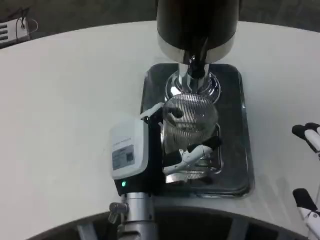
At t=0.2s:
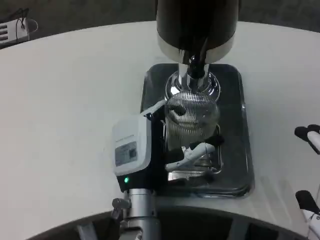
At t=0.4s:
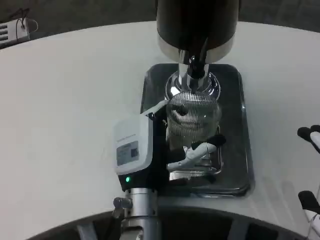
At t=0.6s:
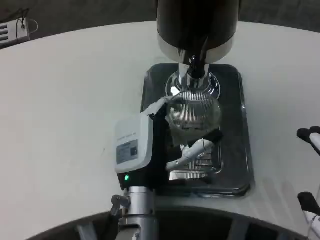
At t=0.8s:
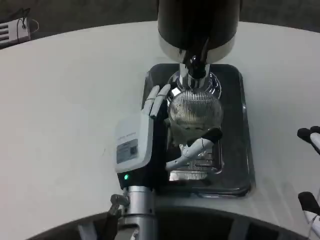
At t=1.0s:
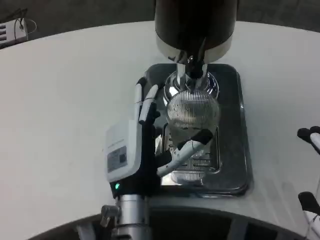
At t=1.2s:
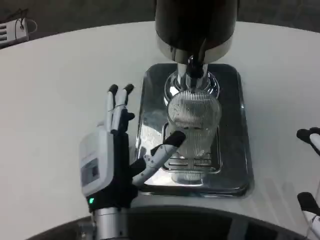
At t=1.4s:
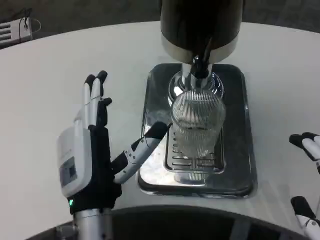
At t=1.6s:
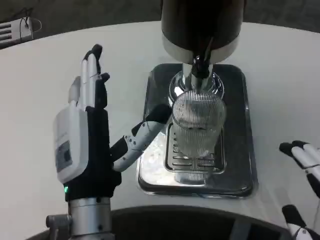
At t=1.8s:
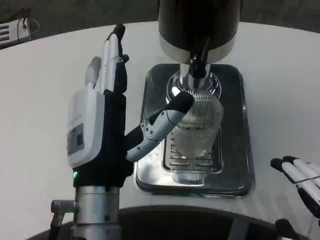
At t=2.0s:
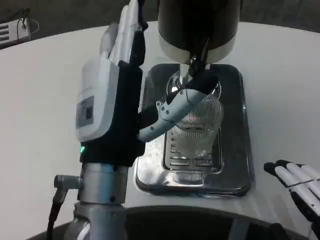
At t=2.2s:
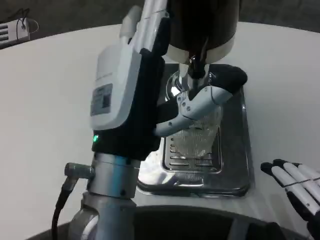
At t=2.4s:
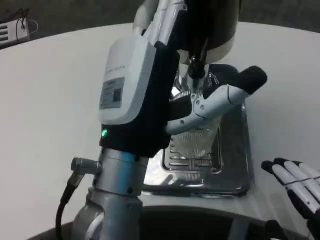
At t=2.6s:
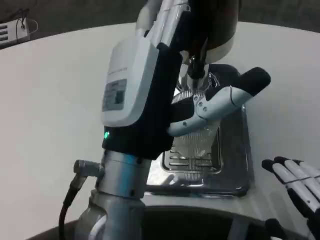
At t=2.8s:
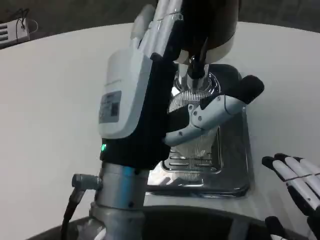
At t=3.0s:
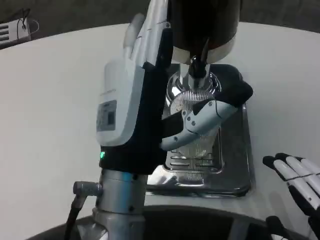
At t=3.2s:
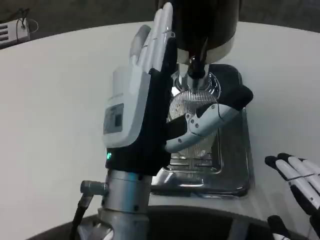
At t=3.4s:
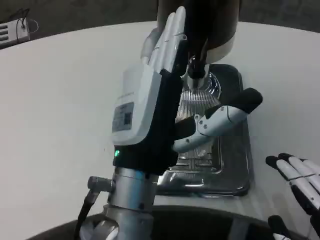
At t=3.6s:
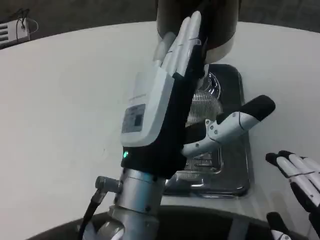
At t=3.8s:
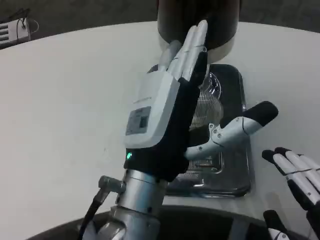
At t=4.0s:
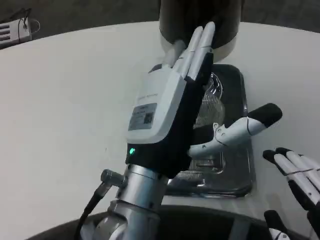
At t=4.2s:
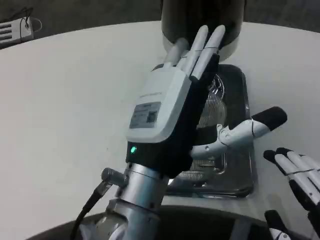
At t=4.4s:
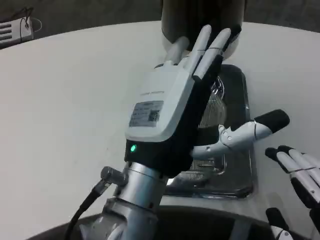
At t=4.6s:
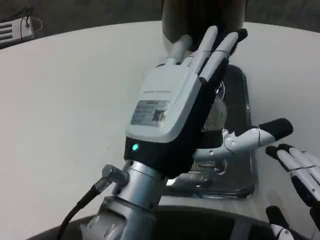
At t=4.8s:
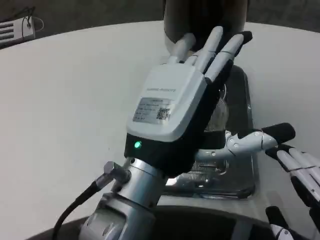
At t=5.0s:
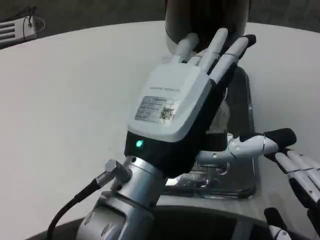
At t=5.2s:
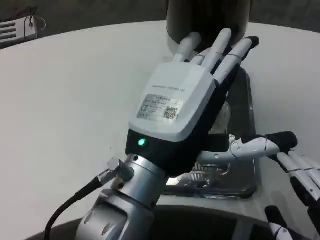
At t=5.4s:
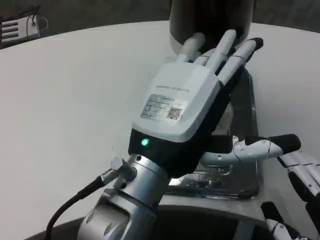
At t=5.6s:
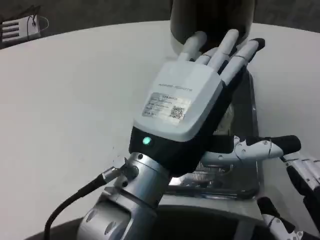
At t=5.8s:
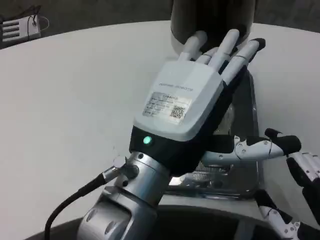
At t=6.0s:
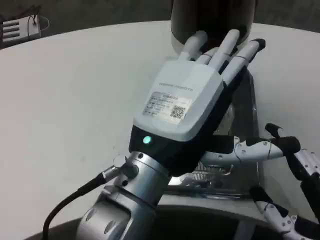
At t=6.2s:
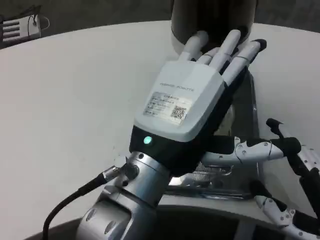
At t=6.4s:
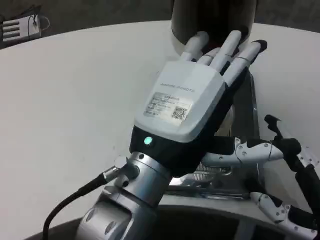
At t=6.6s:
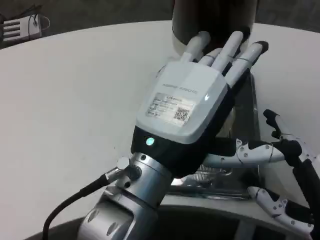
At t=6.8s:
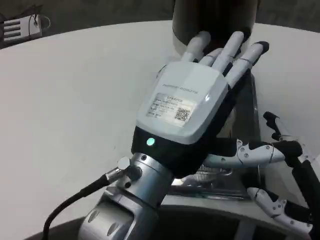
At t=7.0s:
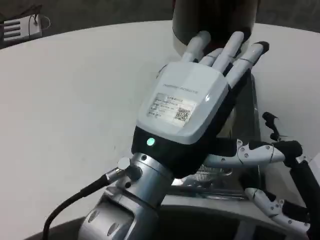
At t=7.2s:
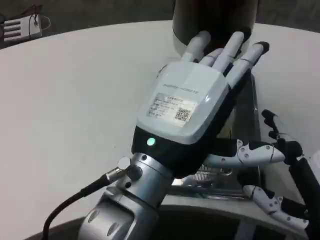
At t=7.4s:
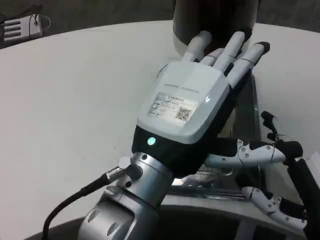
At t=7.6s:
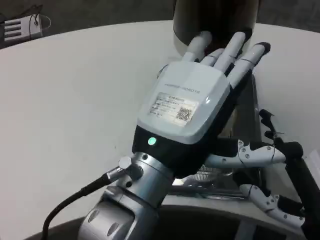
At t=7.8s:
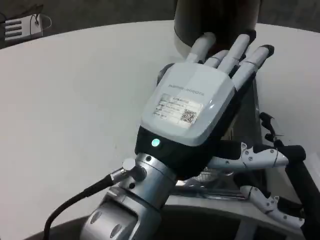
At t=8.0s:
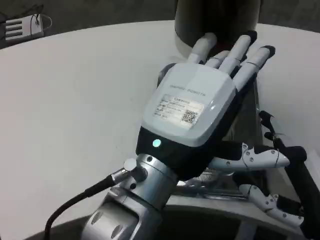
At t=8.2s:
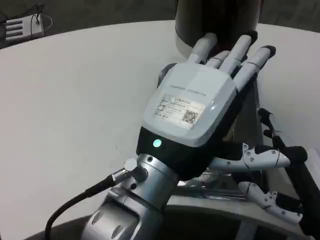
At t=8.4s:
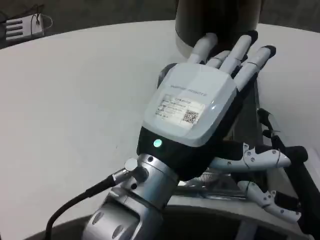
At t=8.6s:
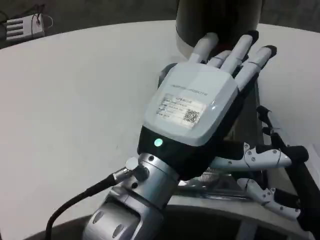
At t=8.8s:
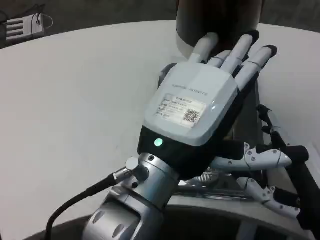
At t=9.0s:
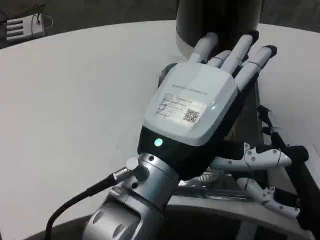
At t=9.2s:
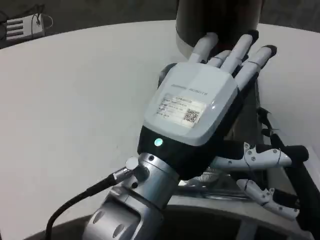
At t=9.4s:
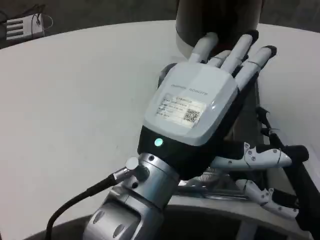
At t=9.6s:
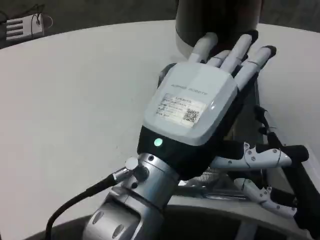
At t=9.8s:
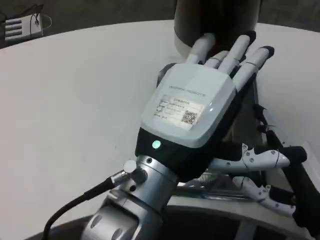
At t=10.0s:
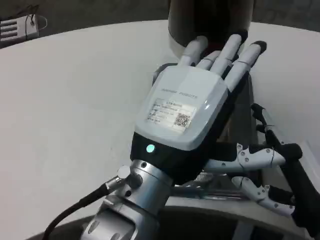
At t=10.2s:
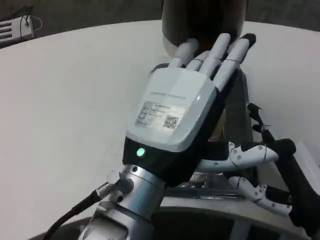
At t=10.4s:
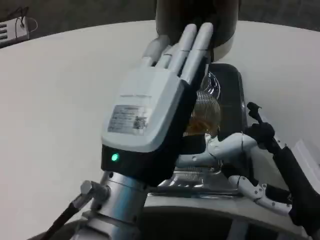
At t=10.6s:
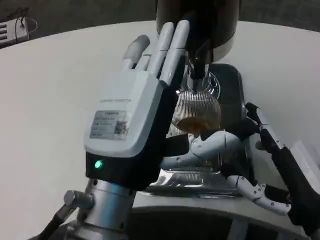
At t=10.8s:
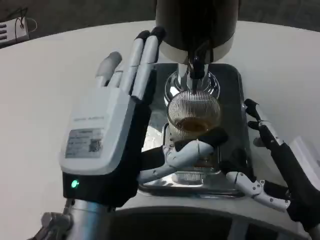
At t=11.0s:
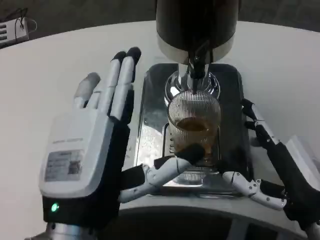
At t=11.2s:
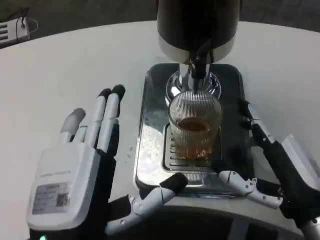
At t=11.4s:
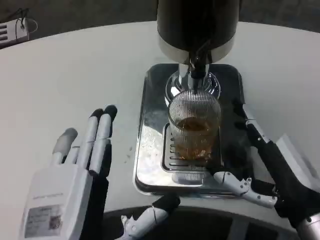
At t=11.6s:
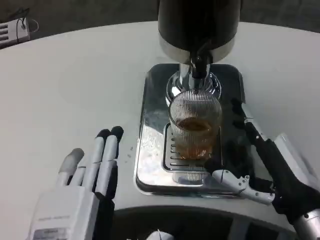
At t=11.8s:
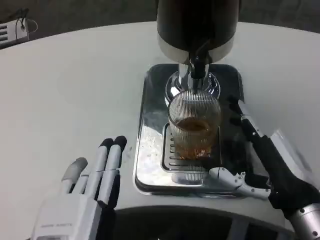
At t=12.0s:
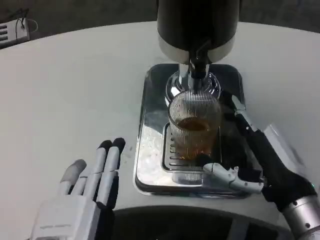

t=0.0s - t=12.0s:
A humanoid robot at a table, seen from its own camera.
Task of the whole recording: Grasp the cup under the faucet to collect the drink, then remove the cup.
t=0.0s - t=1.6s: The left hand goes about 10 cm backward and upward.
t=1.6s - t=3.0s: The left hand moves approximately 5 cm.
t=6.0s - t=9.0s: The hands make only small movements.
t=10.4s - t=12.0s: The left hand moves downward, backward and to the left, approximately 15 cm.

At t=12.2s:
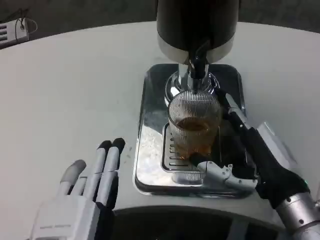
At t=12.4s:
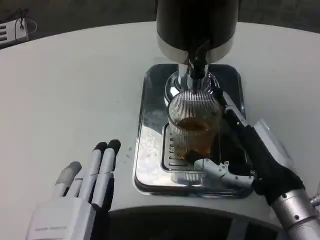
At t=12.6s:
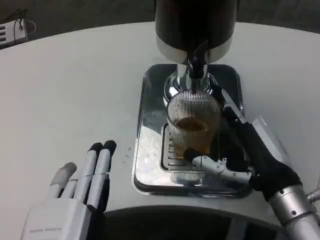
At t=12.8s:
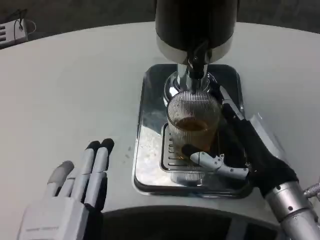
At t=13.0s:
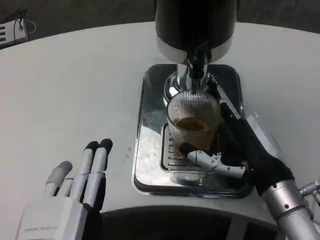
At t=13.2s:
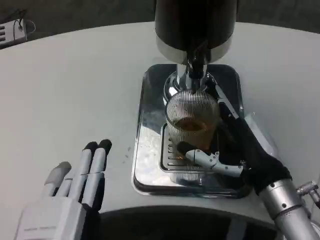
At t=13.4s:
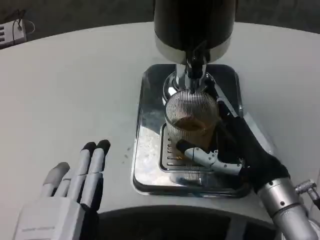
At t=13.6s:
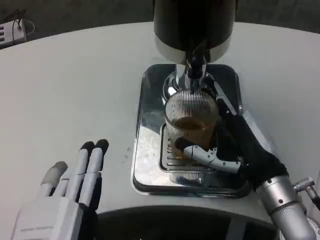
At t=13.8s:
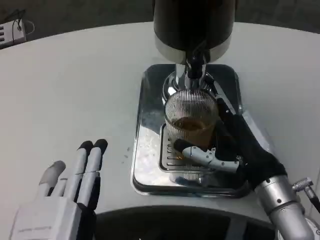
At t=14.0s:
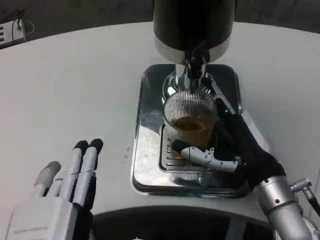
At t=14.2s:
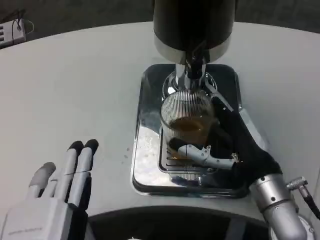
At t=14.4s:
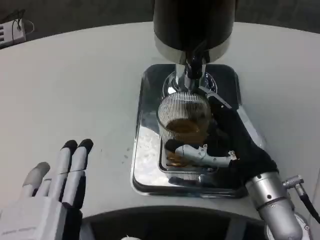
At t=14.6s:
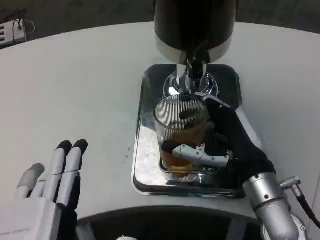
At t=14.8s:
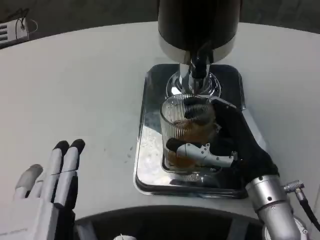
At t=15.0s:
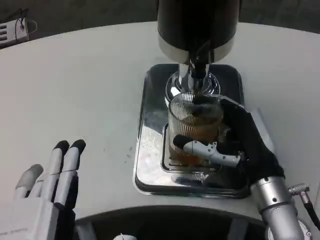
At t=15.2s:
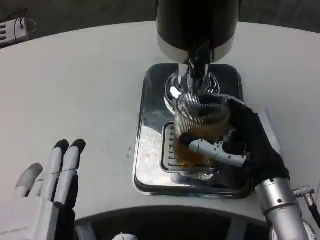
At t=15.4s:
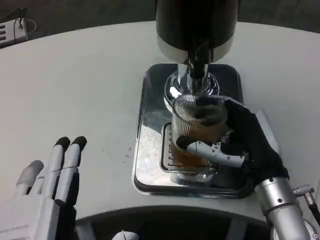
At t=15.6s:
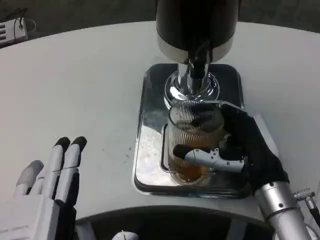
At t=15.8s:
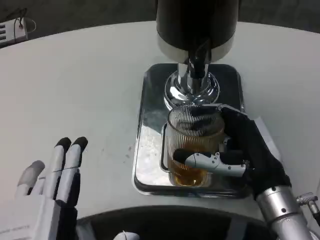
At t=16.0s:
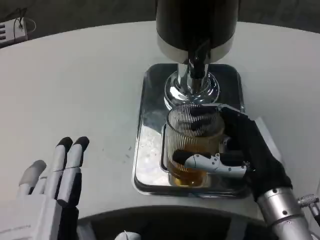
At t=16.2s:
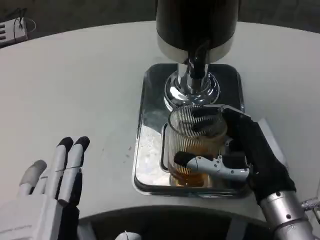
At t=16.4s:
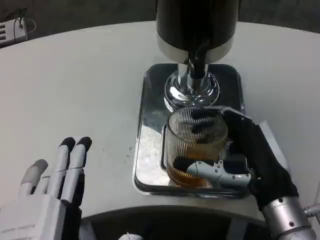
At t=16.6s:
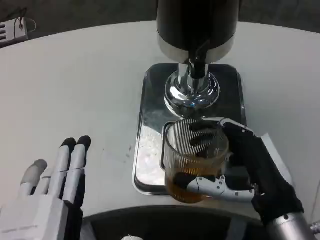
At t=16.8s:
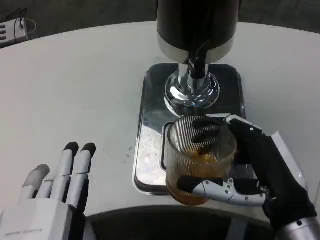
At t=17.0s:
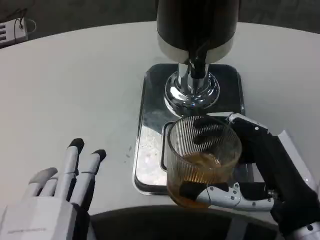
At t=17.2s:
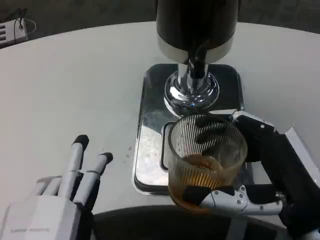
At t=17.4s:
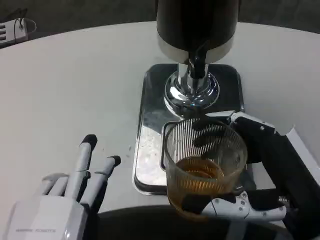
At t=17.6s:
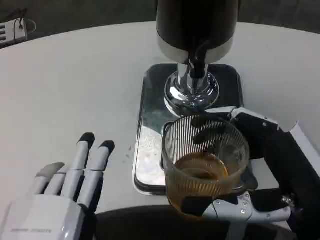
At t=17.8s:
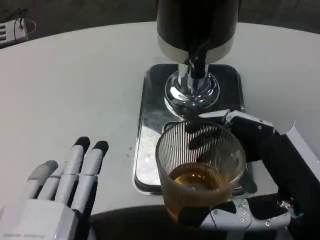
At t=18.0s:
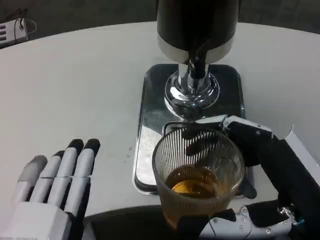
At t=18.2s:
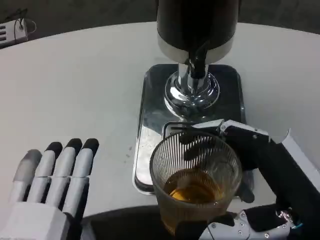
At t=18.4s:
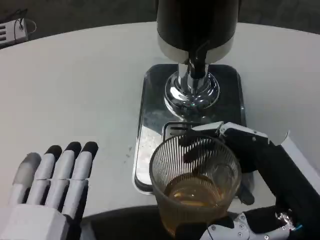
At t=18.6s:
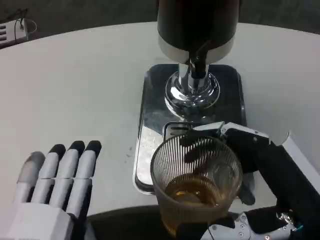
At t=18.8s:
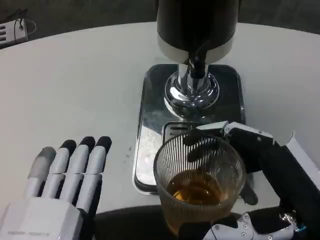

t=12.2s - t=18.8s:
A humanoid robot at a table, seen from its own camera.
Task of the whole recording: Grasp the cup under the faucet to collect the drink, then remove the cup.
t=12.2s - t=15.4s: There are only small adjustments of the hands.
t=15.4s - t=17.2s: The right hand shifts roughly 10 cm backward.
t=17.2s - t=18.8s: The hands move only a little.

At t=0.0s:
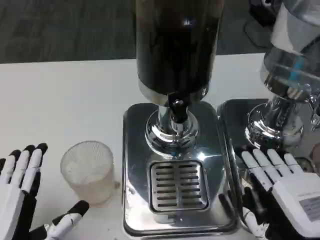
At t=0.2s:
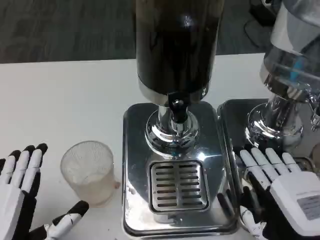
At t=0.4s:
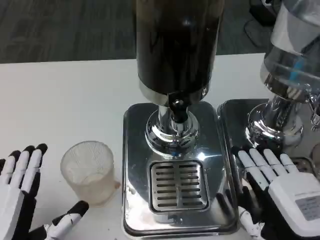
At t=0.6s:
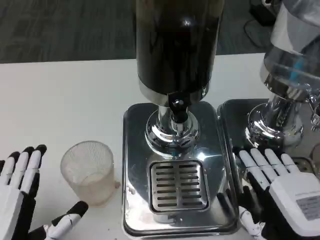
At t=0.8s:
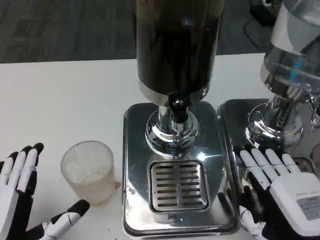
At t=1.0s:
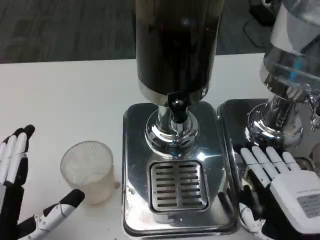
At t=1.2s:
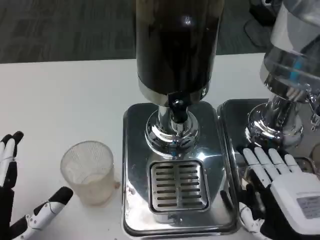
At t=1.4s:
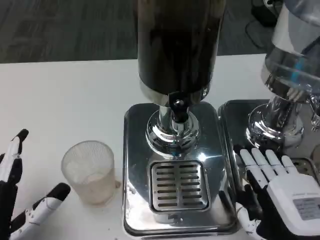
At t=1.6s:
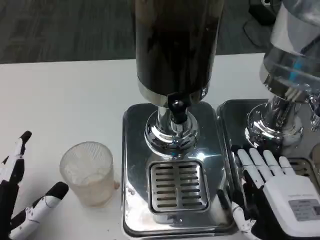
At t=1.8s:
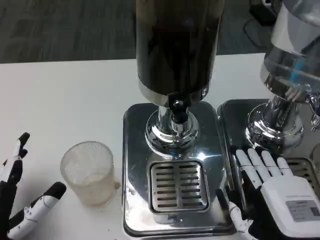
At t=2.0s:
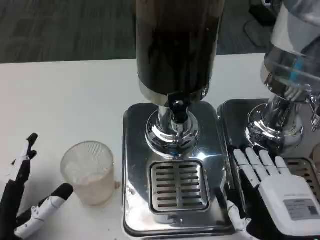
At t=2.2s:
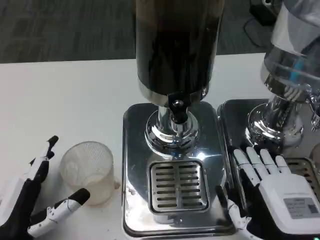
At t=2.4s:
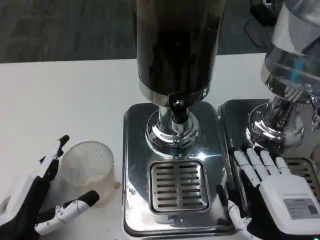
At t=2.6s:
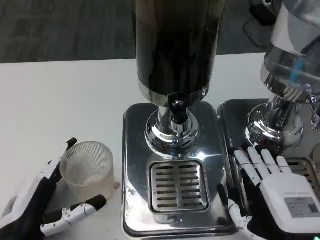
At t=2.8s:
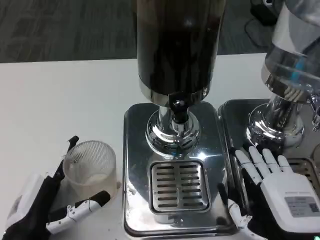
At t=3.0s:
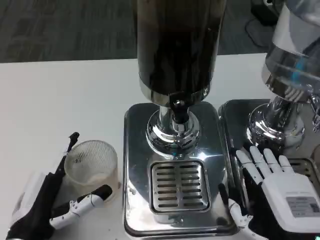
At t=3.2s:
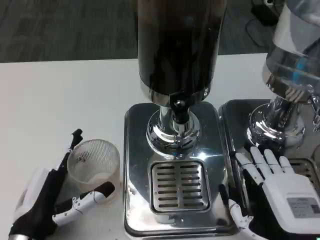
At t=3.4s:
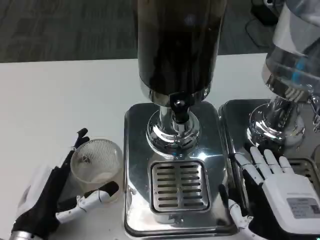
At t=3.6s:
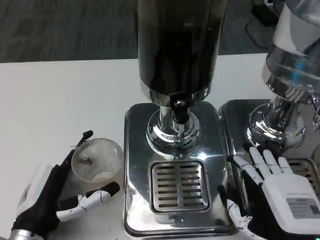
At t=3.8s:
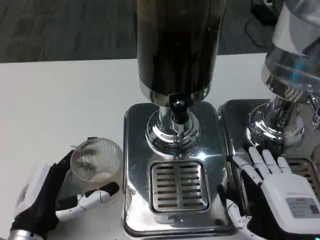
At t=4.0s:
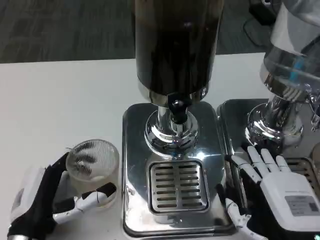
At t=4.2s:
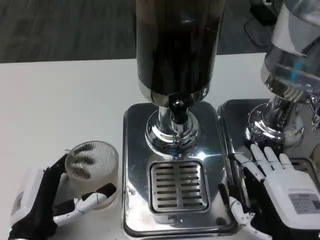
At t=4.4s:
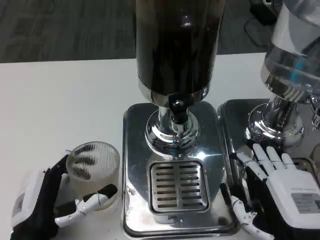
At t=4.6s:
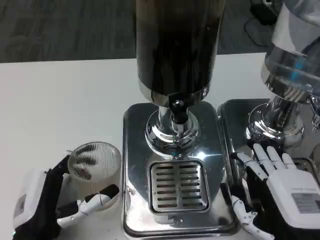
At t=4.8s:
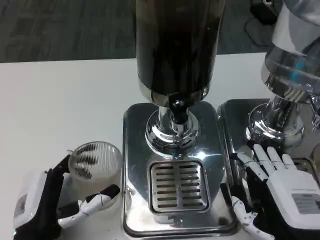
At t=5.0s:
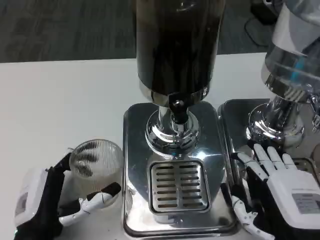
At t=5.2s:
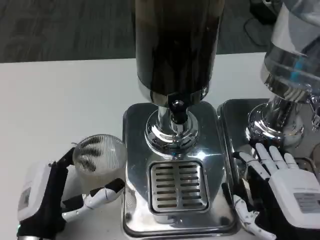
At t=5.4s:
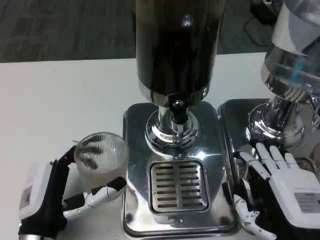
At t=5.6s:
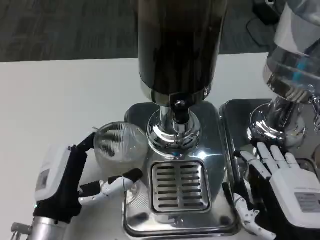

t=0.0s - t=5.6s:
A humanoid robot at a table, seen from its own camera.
Task of the whole recording: Grasp the cup under the faucet to collect the drink, then remove the cup.
t=1.4s - t=2.8s: The left hand changes place by roughly 5 cm.
t=2.8s - t=4.2s: The hands stay close to where they were, moving slightly.